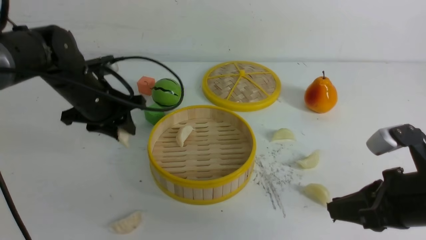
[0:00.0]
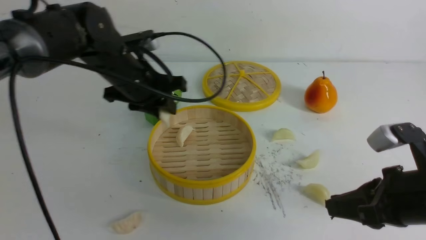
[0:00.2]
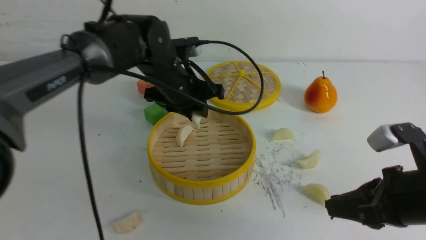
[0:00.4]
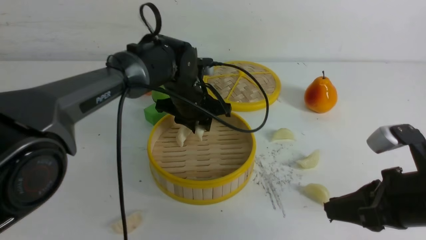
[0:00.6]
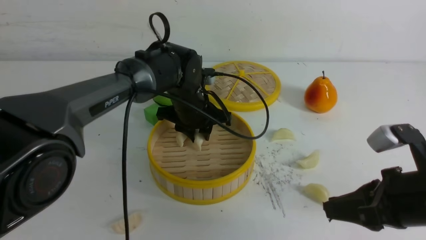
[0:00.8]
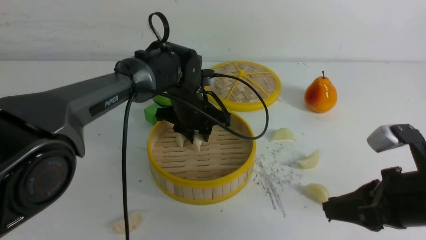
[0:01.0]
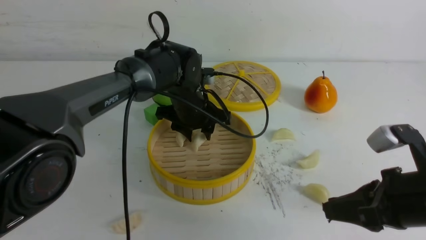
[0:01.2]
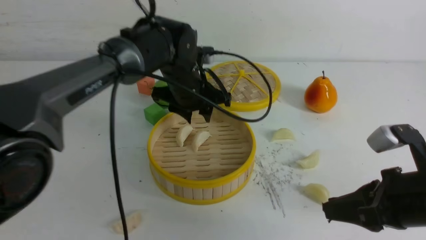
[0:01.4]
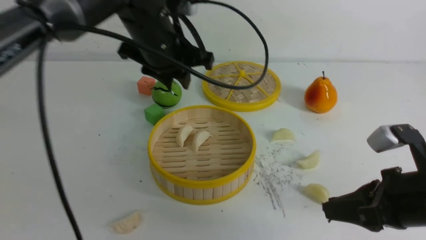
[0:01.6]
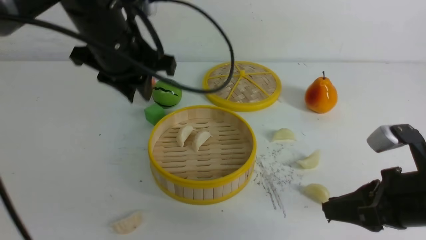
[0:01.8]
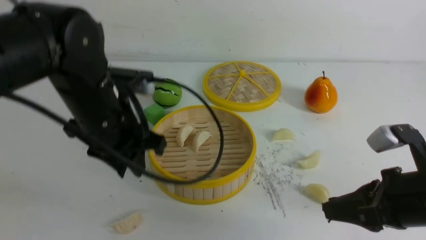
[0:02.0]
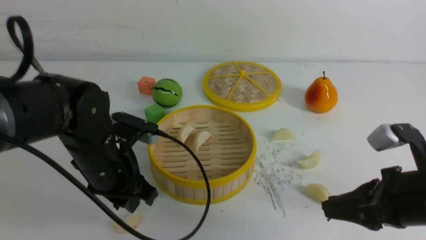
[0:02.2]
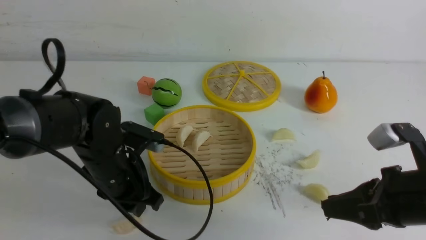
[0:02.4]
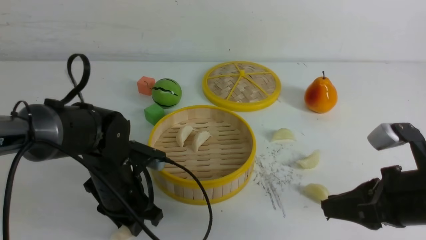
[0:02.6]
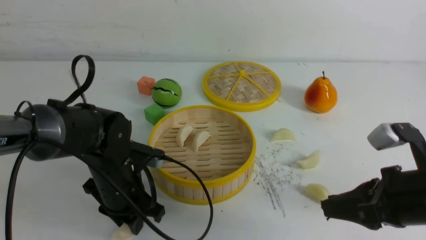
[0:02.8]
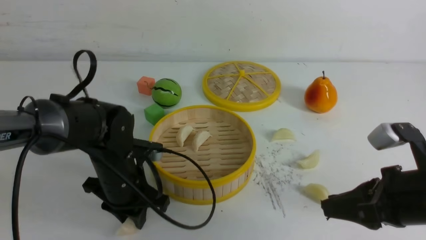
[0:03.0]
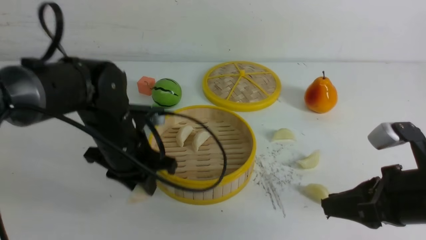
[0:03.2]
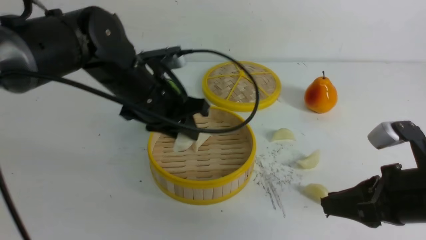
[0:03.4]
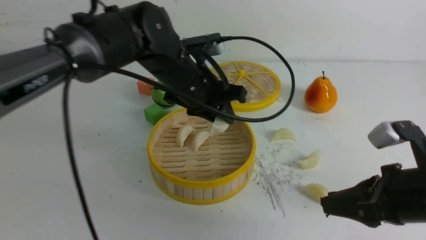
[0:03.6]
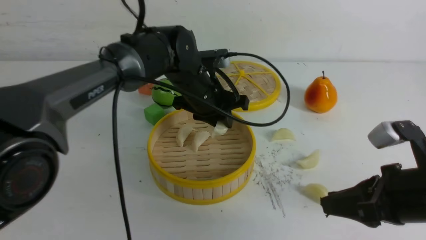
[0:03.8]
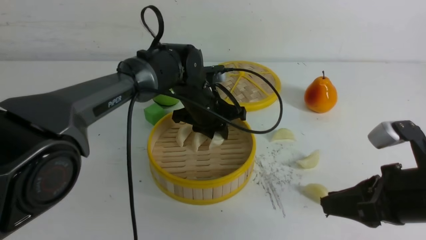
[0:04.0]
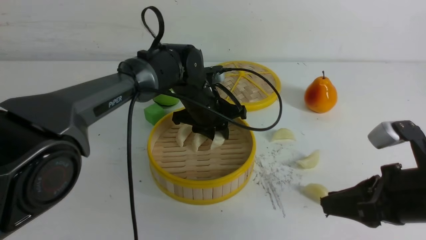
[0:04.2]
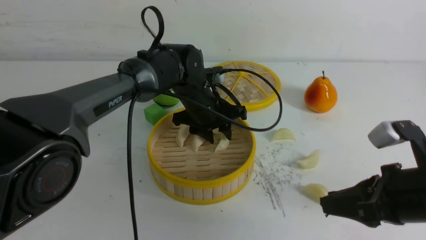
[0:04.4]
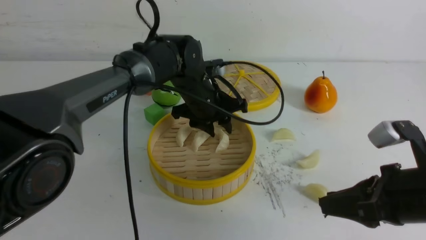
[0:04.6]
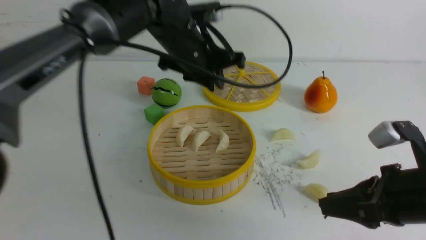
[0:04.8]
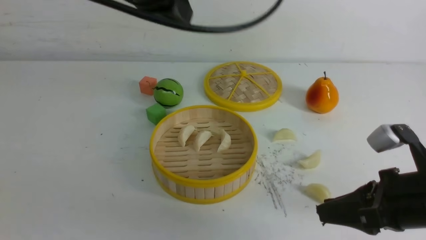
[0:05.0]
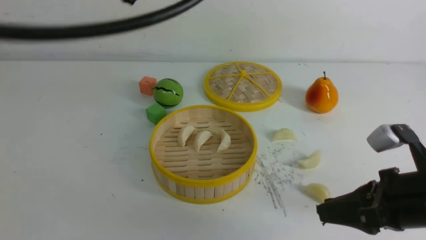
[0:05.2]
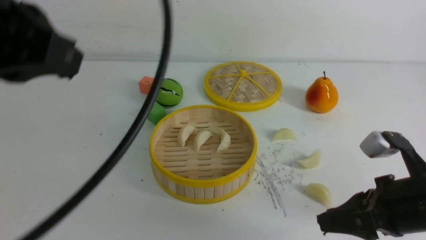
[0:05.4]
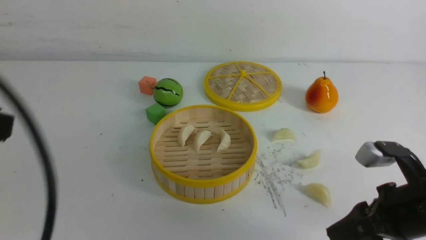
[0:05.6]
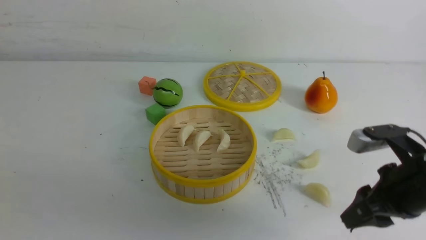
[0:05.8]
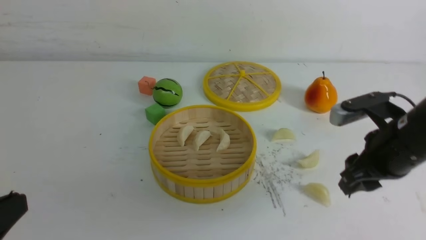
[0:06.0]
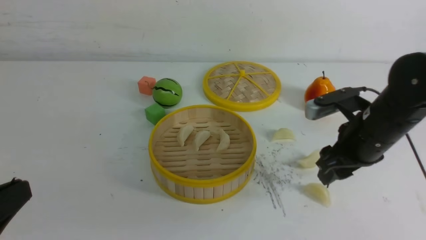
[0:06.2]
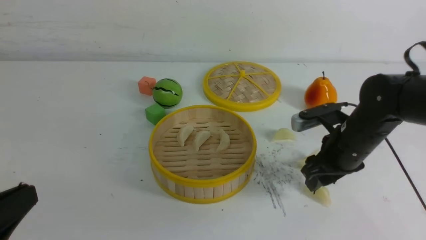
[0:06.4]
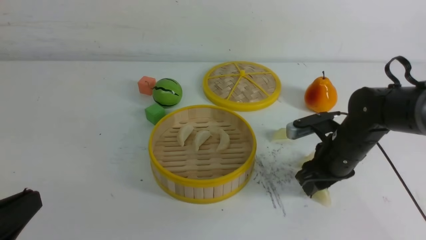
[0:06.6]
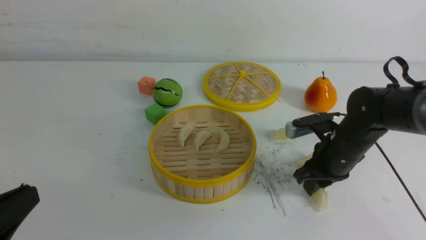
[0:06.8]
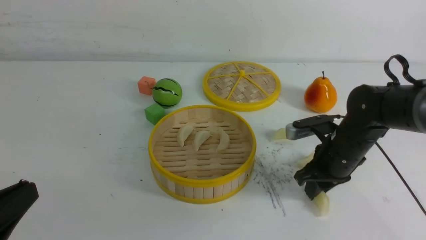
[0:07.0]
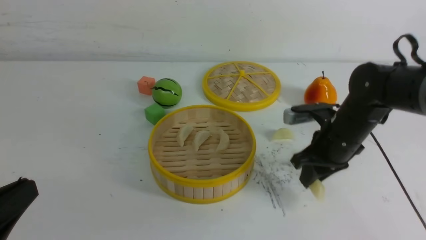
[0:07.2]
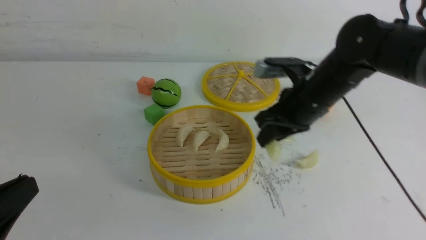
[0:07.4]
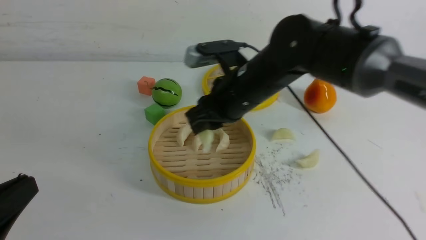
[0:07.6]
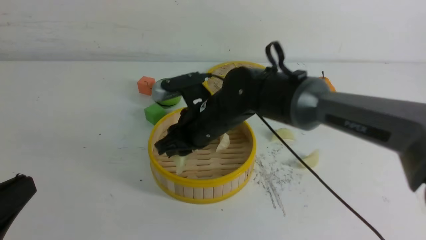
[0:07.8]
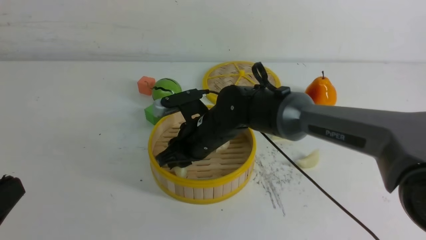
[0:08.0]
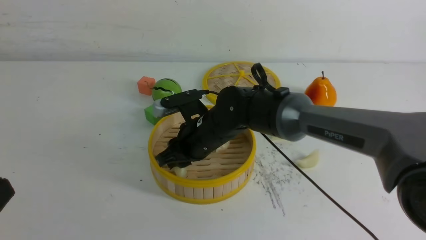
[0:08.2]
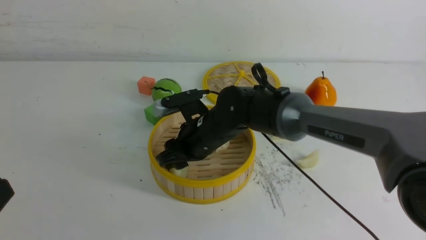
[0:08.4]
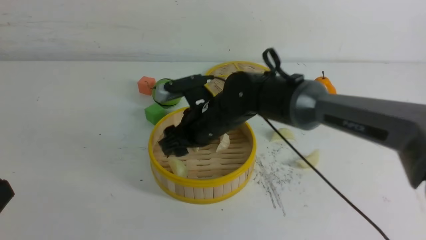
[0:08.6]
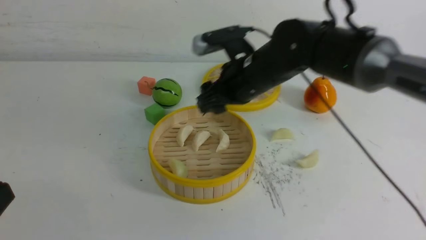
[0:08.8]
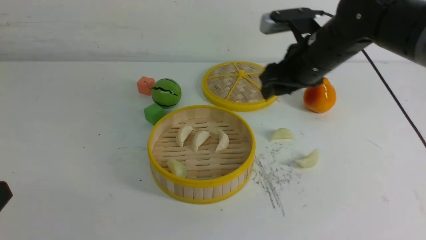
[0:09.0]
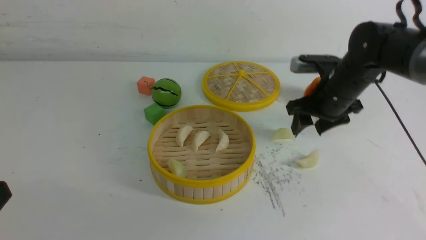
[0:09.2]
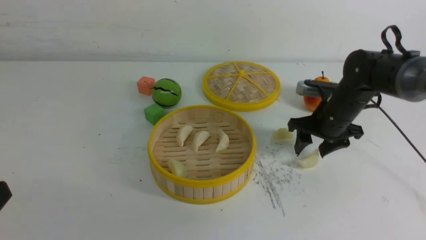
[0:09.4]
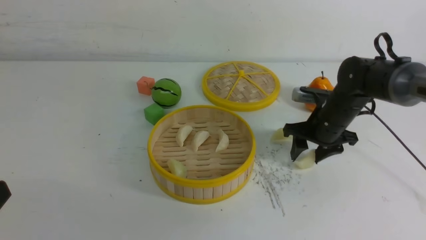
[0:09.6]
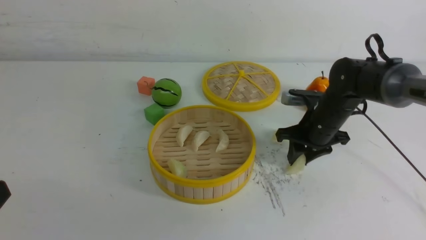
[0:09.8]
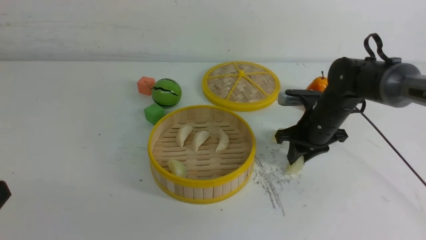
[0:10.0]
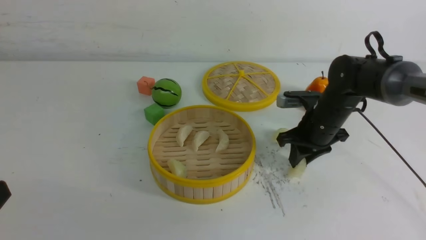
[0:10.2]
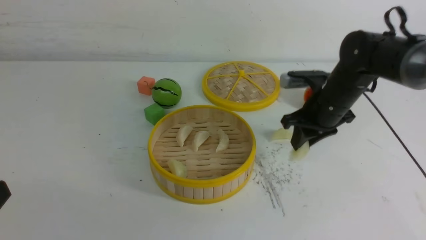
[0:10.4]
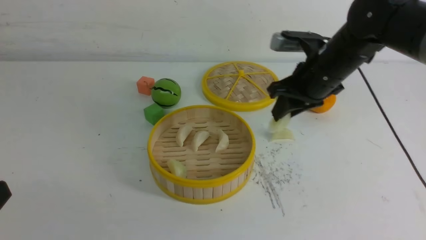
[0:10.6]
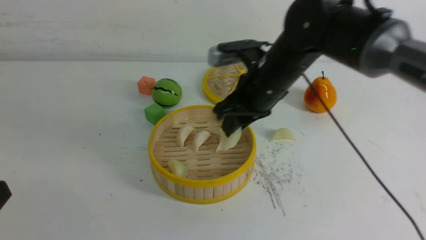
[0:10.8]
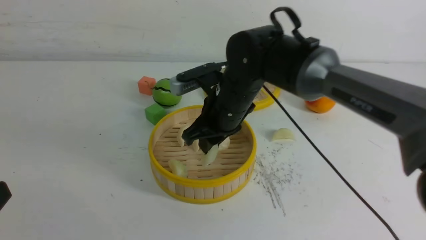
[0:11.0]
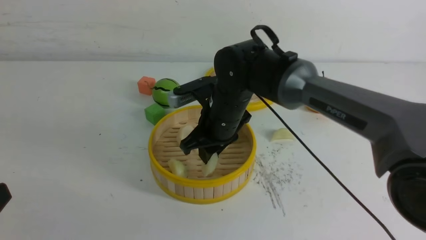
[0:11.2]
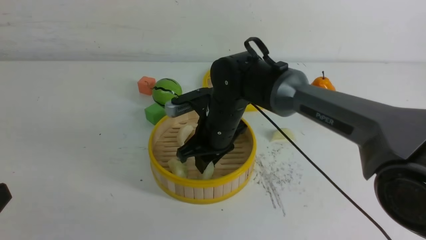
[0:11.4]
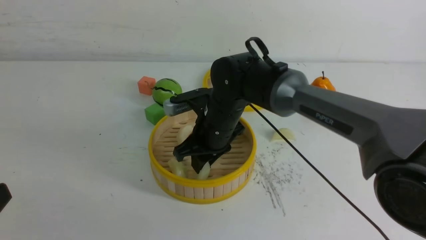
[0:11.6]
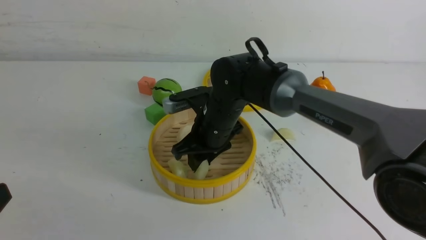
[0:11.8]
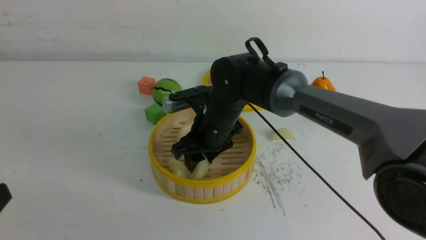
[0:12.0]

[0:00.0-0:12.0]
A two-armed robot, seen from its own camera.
Task of the whole recording: put the dumplings into the steamer on the white table.
Step, 0:00.0 to 0:01.2: use the left arm to put the dumpling into the steamer.
Step, 0:01.4 to 0:03.0: use the left arm to grab a dumpling.
Step, 0:03.2 to 0:04.2: use the left arm to put the dumpling into the steamer.
Step, 0:04.4 to 0:07.0: use the right arm to grab a dumpling.
Step, 0:07.2 to 0:08.4: use the right arm to put the dumpling into the steamer.
Step, 0:08.6 to 0:10.2: use the right arm to grab a dumpling.
0:00.0 to 0:01.6: The left gripper travels upward and to the right by about 10 cm.
0:01.6 to 0:03.0: The left gripper shifts roughly 15 cm downward and backward.
0:03.0 to 0:04.4: The left gripper heads forward and to the right, covering about 15 cm.
0:04.4 to 0:06.0: The left gripper travels backward and to the left by about 40 cm, and closes up. The right gripper moves forward, roughly 5 cm, and opens up.
0:06.0 to 0:07.6: The right gripper heads to the left and forward, covering some 20 cm, and closes up.
0:07.6 to 0:09.0: The right gripper is displaced to the right by about 10 cm, and opens its fingers.
0:09.0 to 0:10.4: The right gripper closes its fingers.
0:10.4 to 0:12.0: The right gripper moves to the left, about 20 cm, and opens.

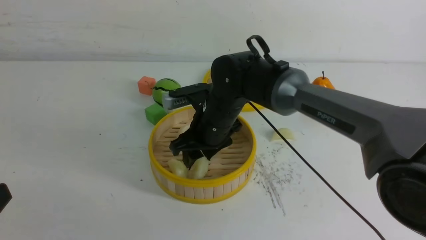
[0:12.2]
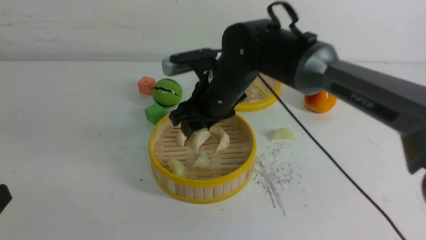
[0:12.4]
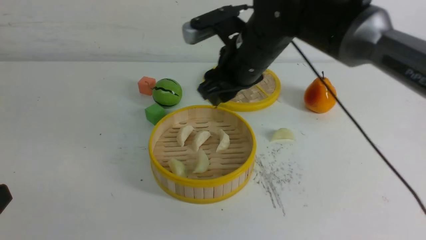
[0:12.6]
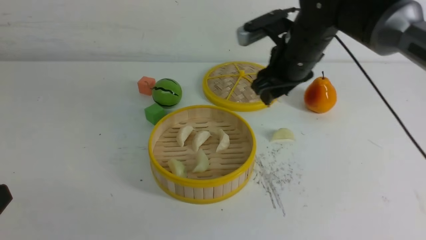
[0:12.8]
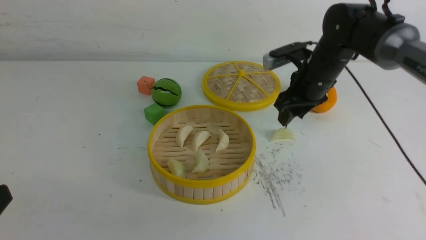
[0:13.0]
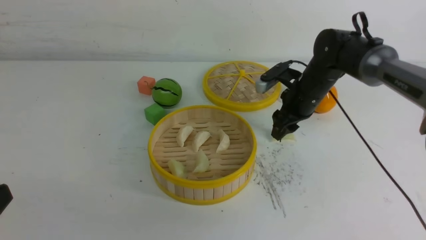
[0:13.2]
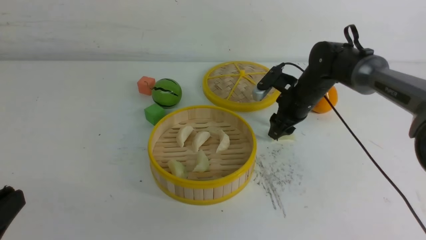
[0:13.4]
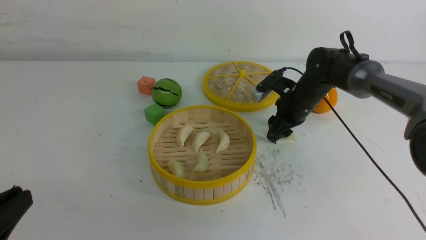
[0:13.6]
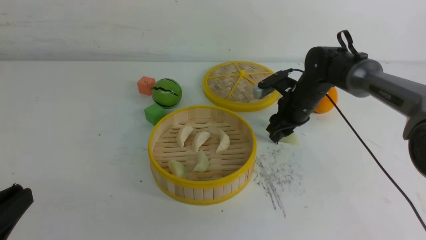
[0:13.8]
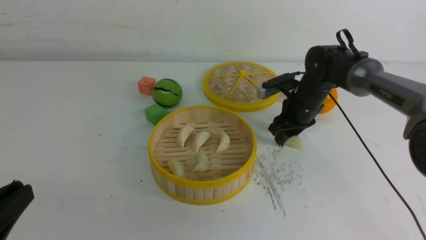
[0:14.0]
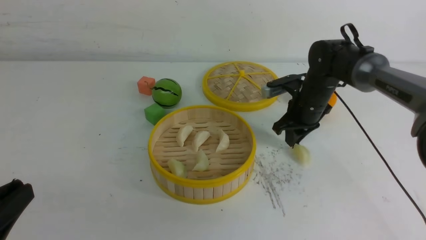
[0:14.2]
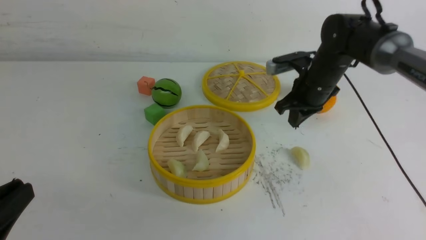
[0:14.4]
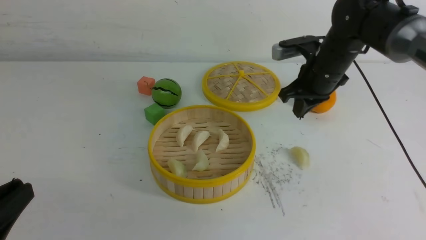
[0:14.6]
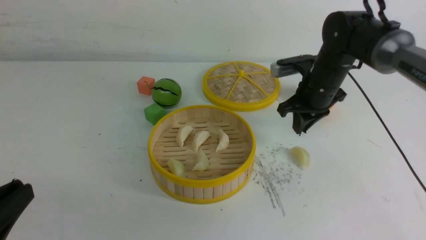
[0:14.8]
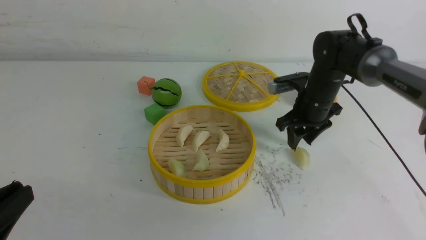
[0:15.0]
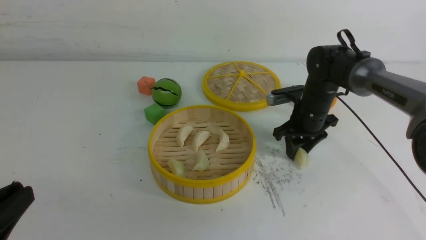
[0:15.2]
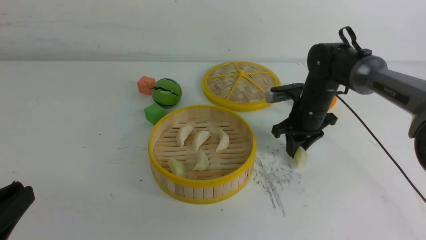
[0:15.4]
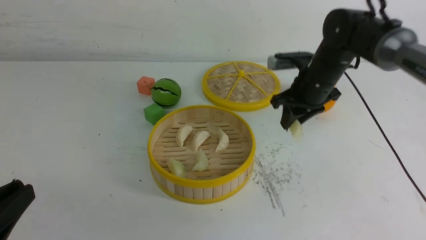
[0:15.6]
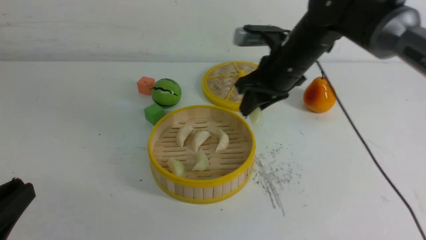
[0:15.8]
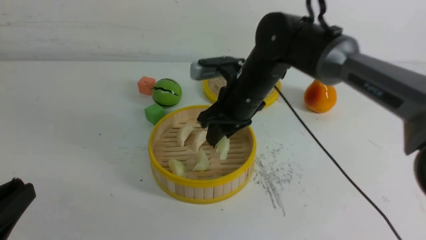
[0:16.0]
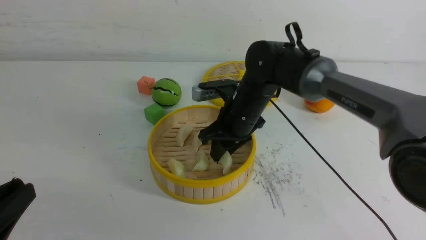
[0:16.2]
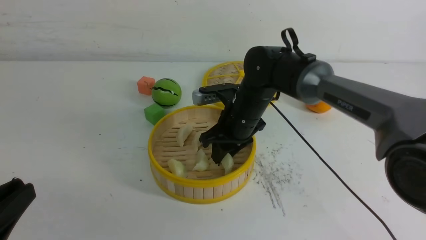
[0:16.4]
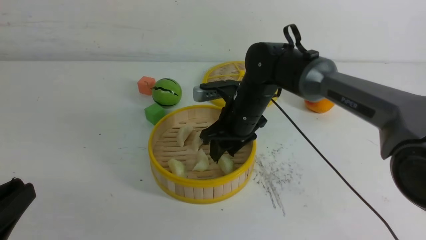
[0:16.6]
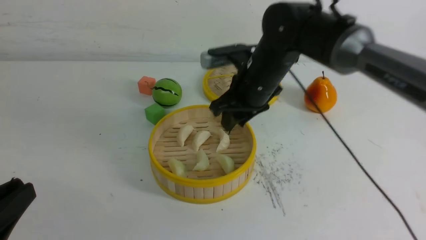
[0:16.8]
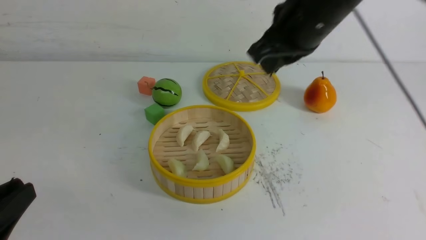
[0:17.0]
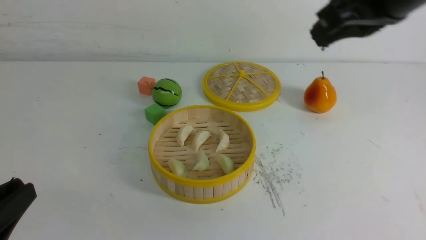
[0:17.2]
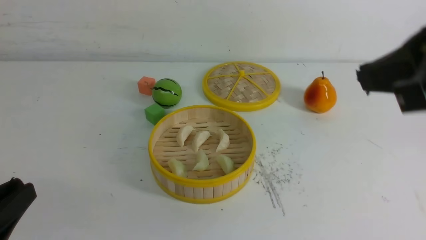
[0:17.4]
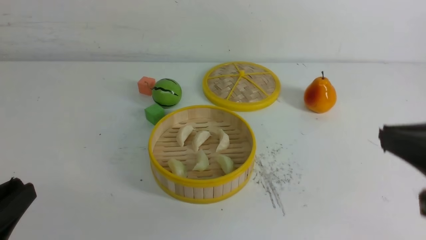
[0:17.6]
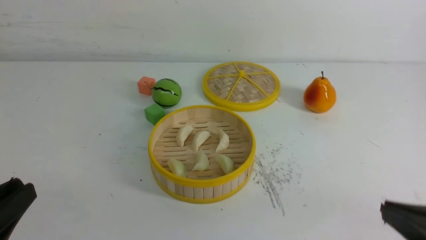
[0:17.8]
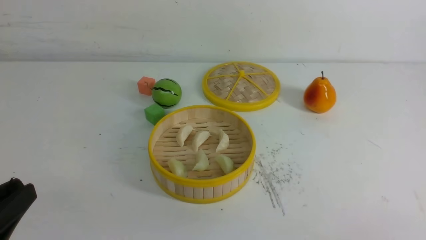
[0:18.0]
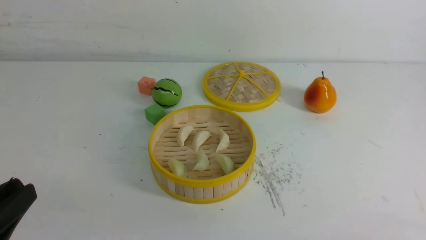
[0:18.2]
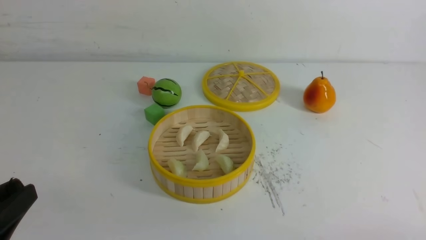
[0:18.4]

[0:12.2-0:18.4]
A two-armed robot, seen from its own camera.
Task of the whole recording: put the dumplings into the steamer on the white table.
Step, 0:12.2 to 0:15.4: use the right arm to grab a dumpling.
Step, 0:15.6 to 0:16.6: use the right arm to put the dumpling into the steamer.
0:12.2 to 0:13.8: The right gripper travels to the right, forward and downward by about 20 cm.
0:13.8 to 0:15.4: The right gripper closes and opens again.
0:15.4 to 0:16.8: The right gripper shifts roughly 15 cm upward, to the left and backward.
0:16.8 to 0:18.4: The right gripper moves backward and to the right, some 40 cm, and closes up.
